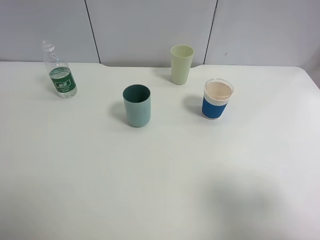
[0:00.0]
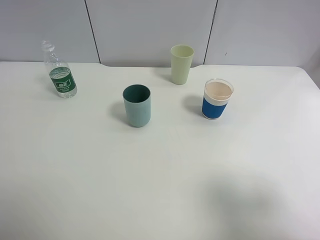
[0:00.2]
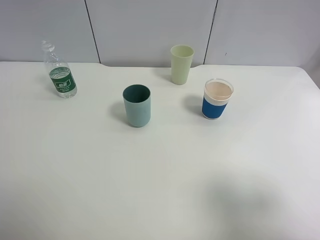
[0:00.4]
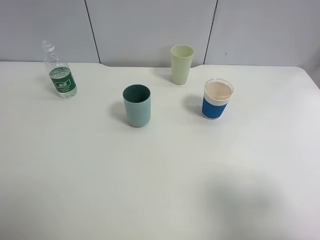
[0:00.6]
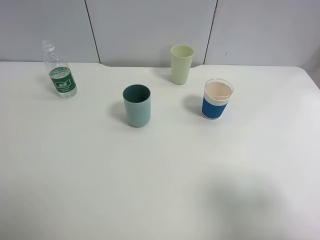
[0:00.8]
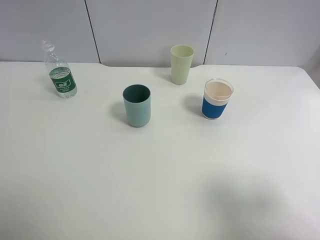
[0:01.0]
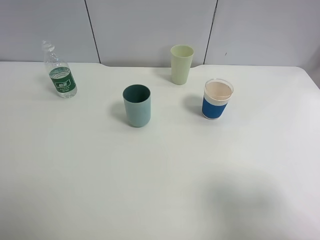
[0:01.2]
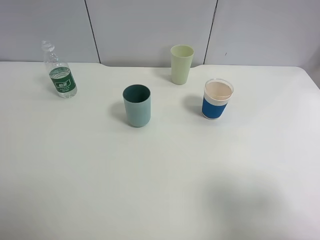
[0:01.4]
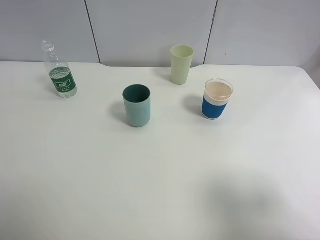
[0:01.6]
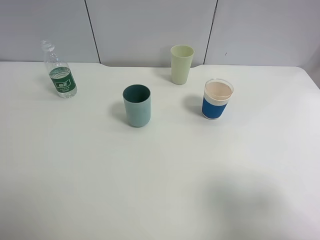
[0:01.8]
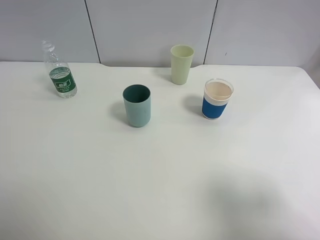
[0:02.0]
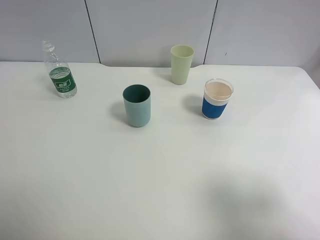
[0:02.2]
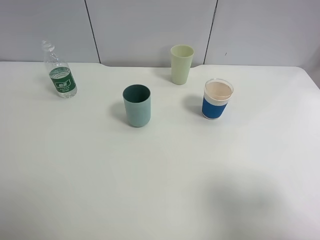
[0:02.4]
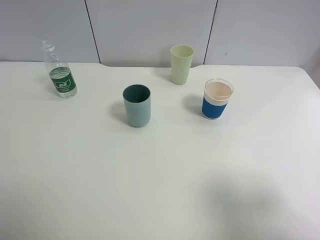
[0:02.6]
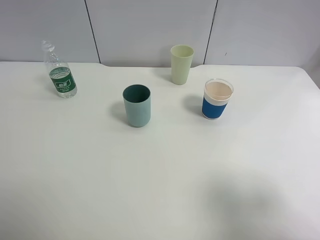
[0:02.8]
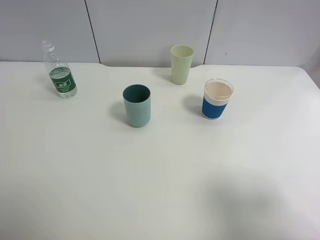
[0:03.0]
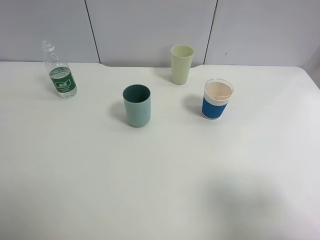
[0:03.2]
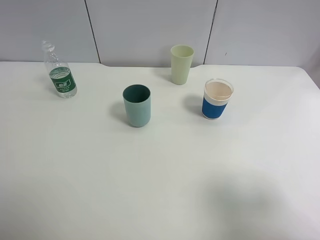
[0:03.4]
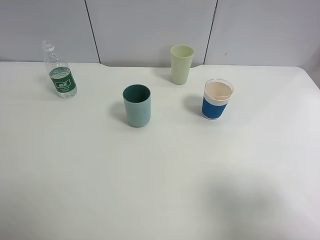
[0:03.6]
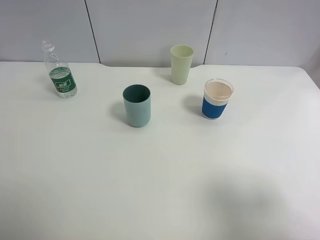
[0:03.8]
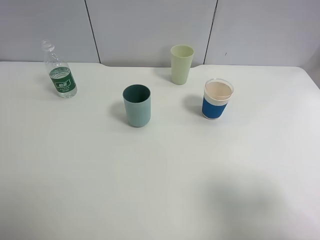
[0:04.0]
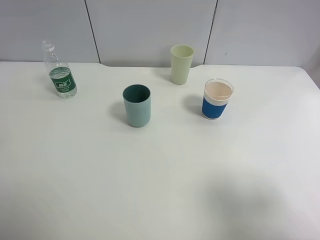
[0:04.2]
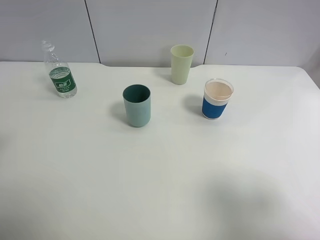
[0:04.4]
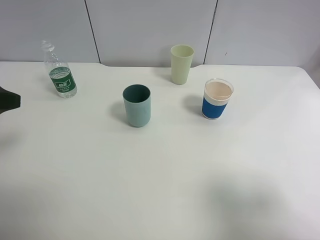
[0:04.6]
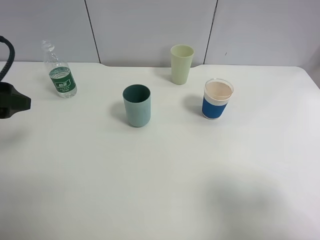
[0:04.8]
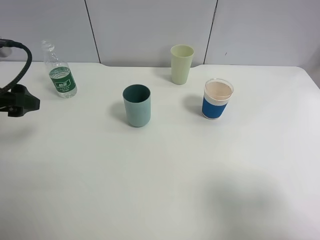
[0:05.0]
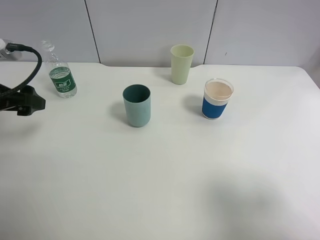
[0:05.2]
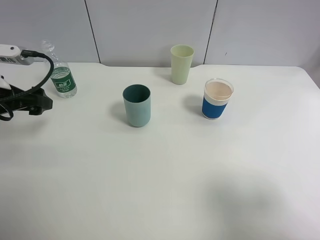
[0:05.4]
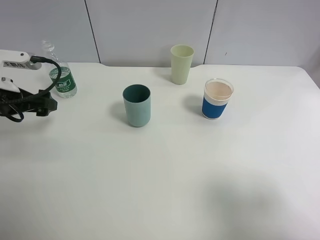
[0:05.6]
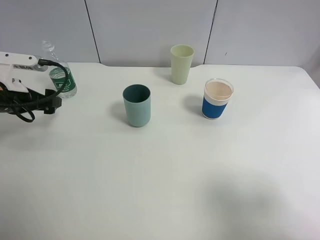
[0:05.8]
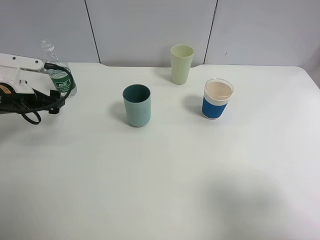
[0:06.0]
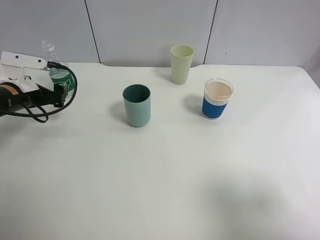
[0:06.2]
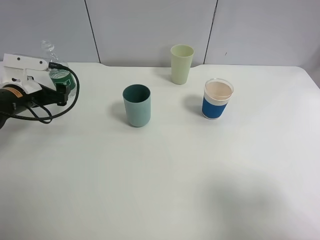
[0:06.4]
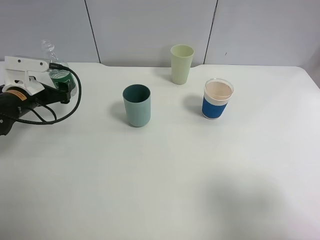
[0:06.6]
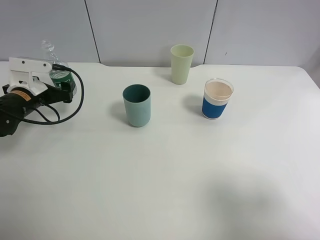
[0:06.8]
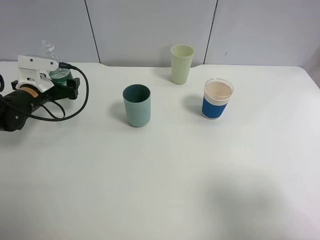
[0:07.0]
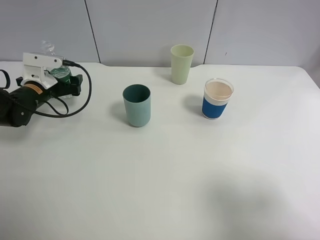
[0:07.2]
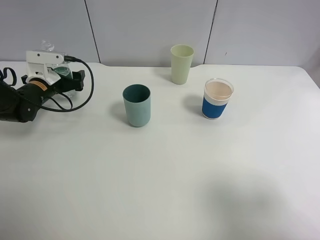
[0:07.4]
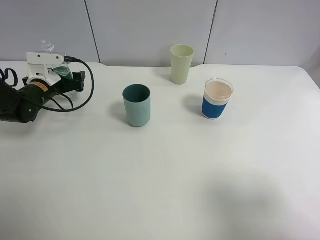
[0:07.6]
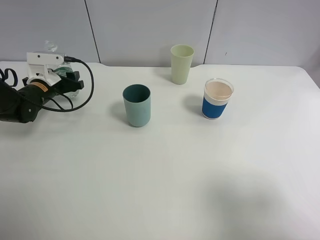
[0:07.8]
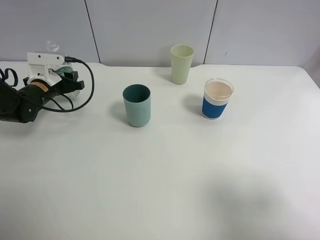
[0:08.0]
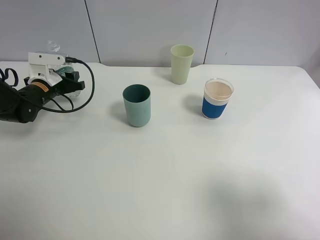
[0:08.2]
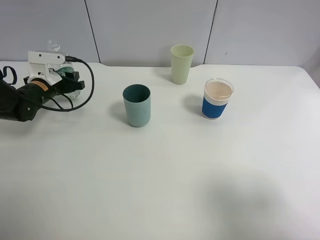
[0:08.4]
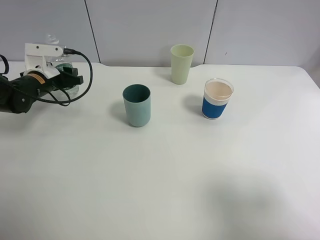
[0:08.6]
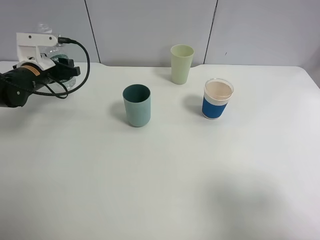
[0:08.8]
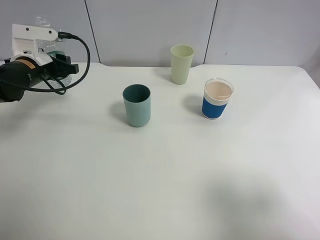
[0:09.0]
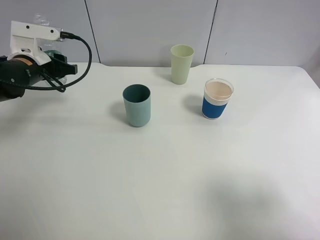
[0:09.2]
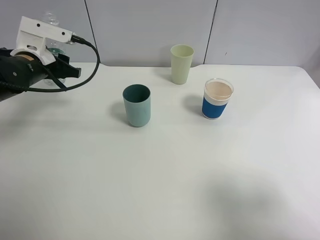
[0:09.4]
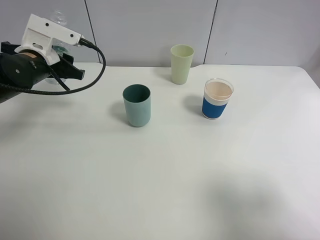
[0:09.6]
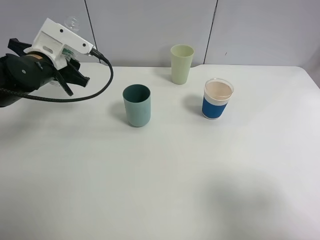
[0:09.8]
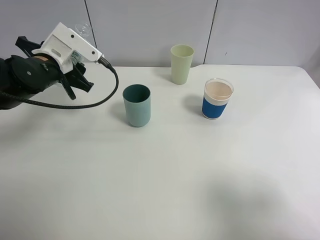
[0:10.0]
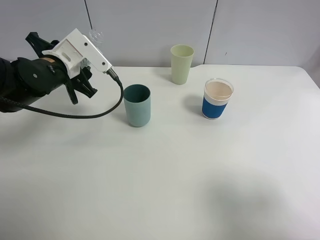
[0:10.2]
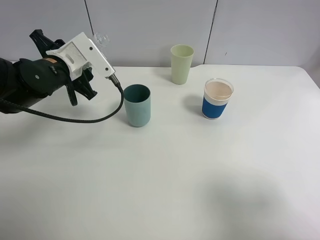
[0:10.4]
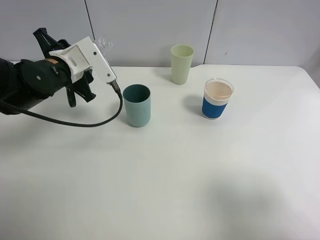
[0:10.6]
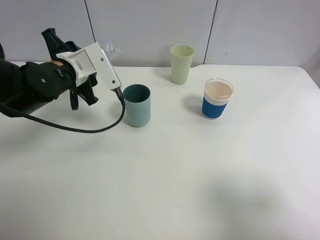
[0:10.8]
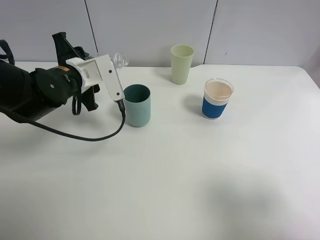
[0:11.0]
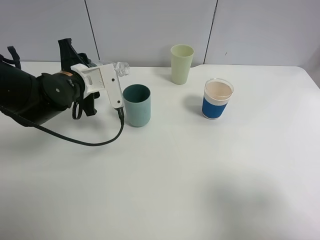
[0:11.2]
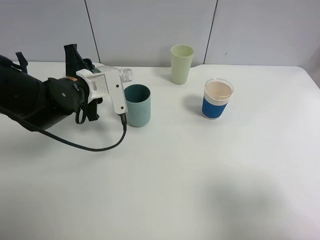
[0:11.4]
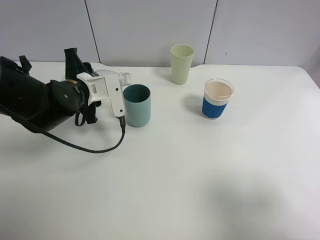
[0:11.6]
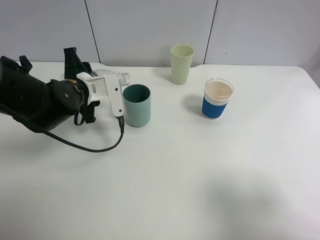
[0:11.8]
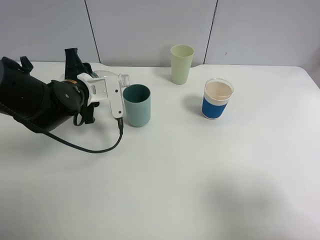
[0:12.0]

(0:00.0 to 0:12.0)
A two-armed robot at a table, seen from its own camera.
Task of the whole recording: use a clamp to hold the bottle of the drink, pour the beverage into a random cup, then clamp the cup containing the drink and pour the drink into another random cup.
Step, 0:00.0 - 0:08.4: Pick up the water bottle with left gripper.
0:00.0 - 0:03.0: Both grippers stay put.
0:04.4 - 0:06.0: The left gripper shifts approximately 25 cm forward and downward.
0:06.0 - 0:07.6: The left gripper shifts some 10 cm forward and downward.
0:07.6 - 0:09.0: The left gripper moves upward, about 10 cm, and closes up.
0:09.0 - 0:10.4: The left gripper shifts some 10 cm to the right.
0:10.4 - 0:12.0: The left gripper moves roughly 5 cm.

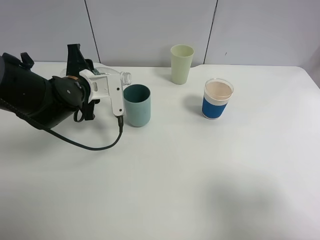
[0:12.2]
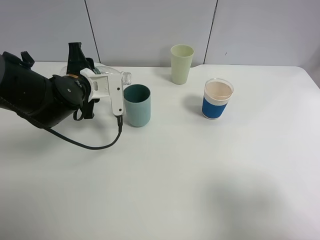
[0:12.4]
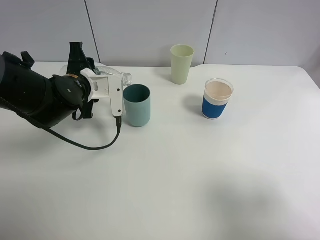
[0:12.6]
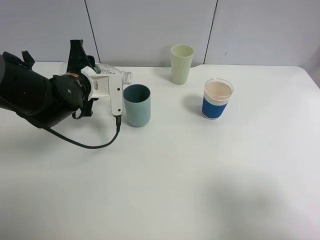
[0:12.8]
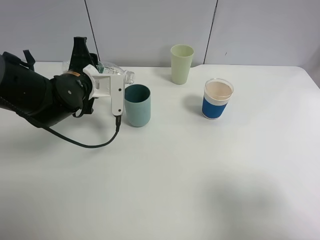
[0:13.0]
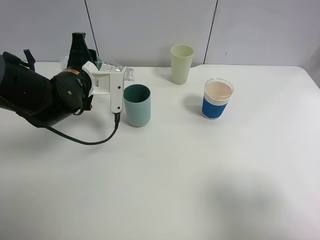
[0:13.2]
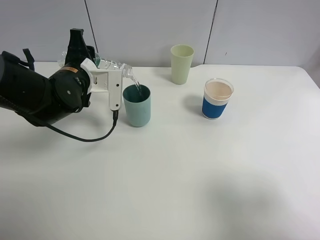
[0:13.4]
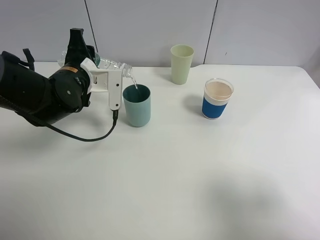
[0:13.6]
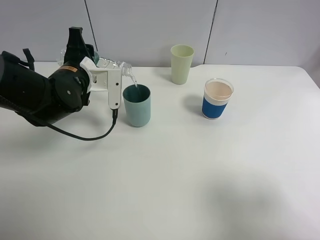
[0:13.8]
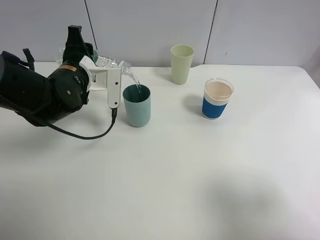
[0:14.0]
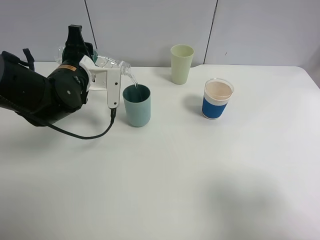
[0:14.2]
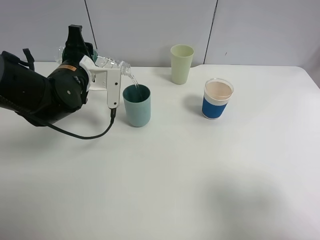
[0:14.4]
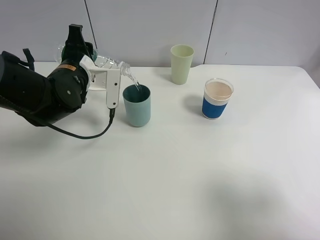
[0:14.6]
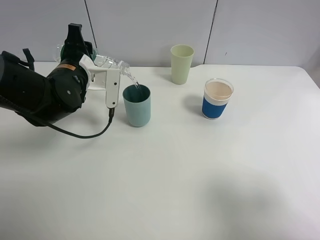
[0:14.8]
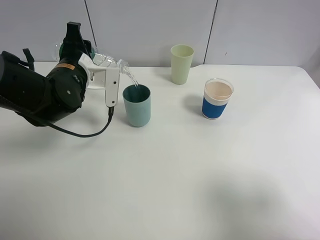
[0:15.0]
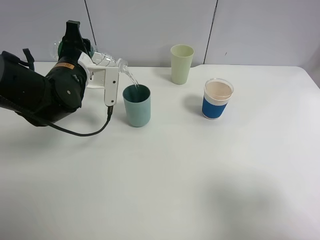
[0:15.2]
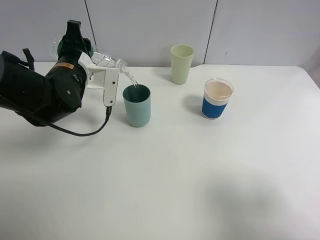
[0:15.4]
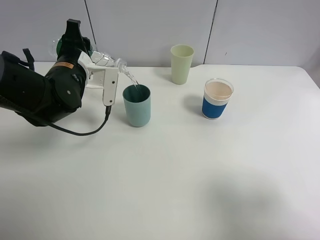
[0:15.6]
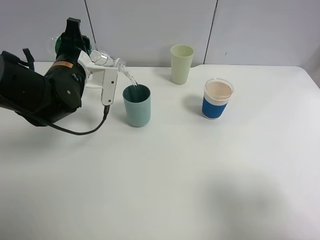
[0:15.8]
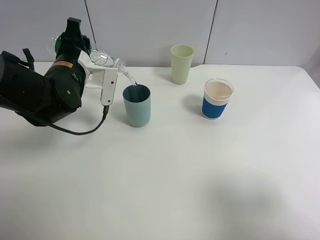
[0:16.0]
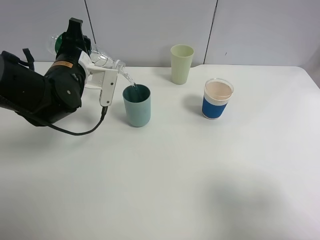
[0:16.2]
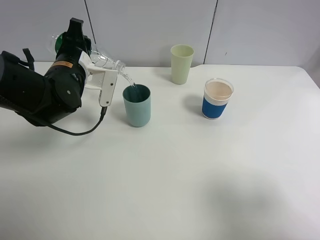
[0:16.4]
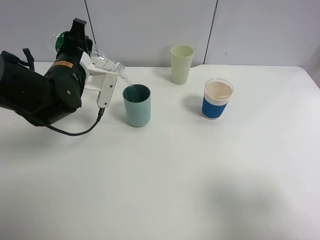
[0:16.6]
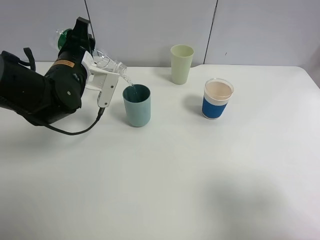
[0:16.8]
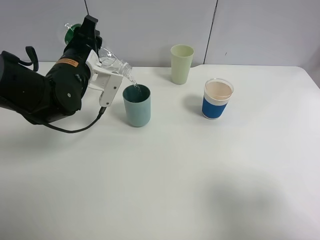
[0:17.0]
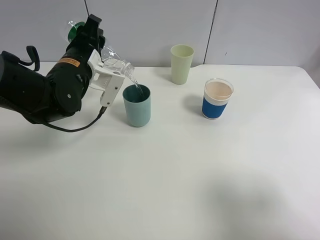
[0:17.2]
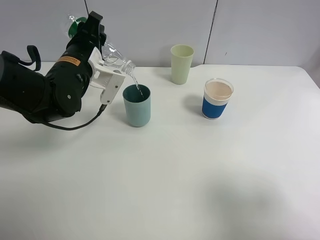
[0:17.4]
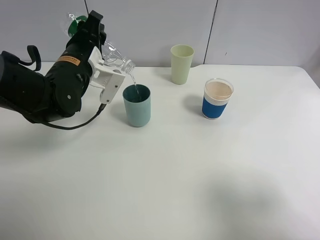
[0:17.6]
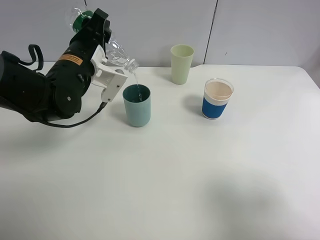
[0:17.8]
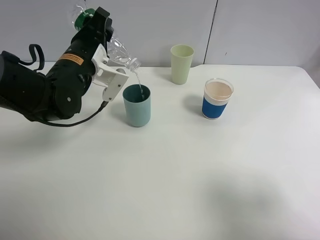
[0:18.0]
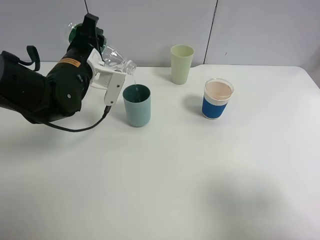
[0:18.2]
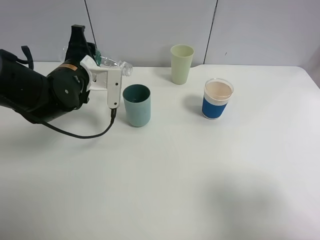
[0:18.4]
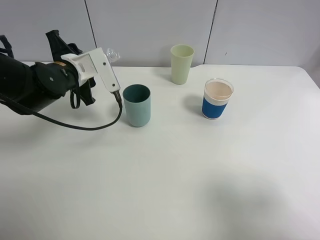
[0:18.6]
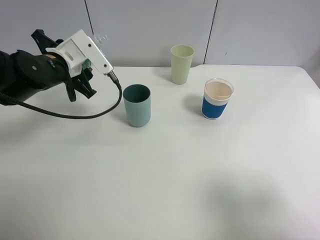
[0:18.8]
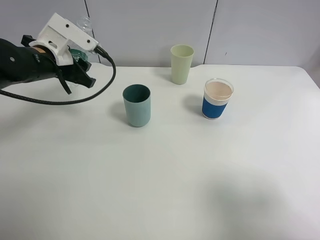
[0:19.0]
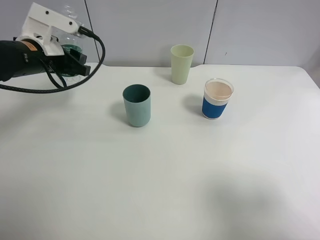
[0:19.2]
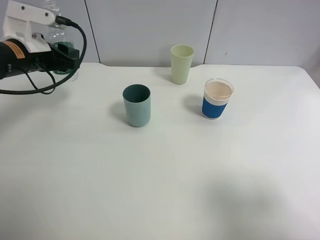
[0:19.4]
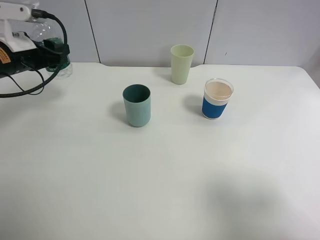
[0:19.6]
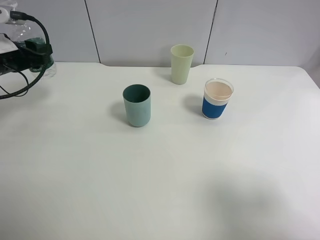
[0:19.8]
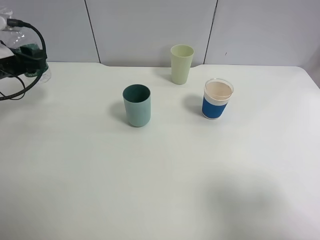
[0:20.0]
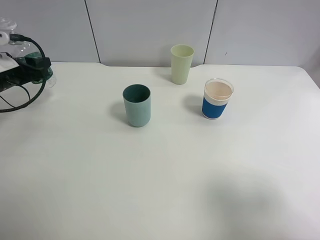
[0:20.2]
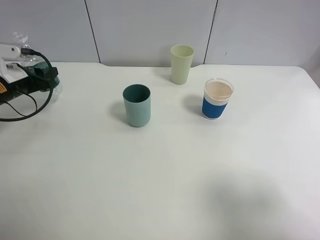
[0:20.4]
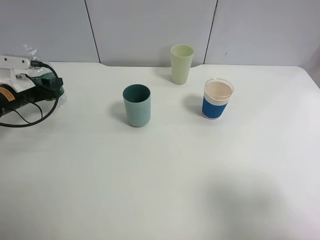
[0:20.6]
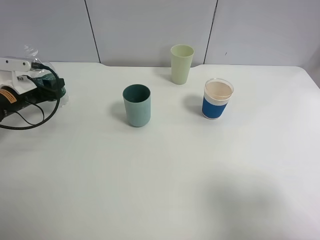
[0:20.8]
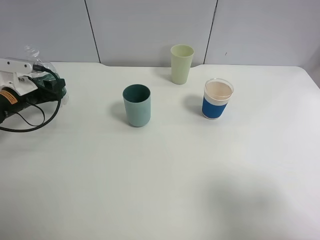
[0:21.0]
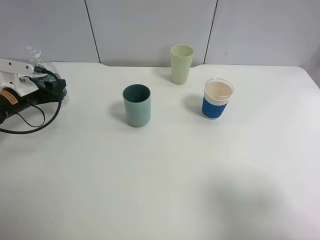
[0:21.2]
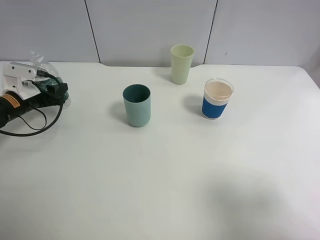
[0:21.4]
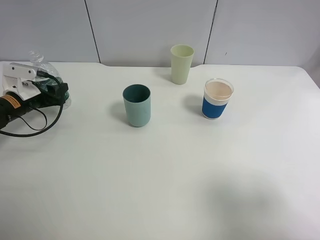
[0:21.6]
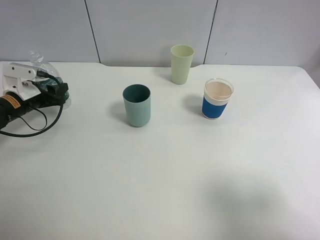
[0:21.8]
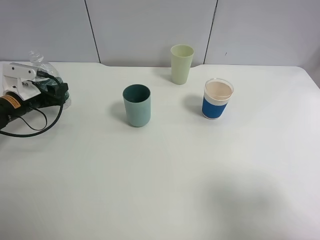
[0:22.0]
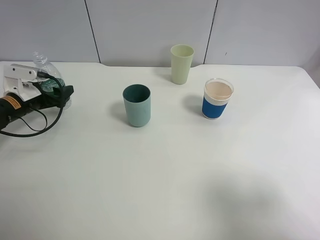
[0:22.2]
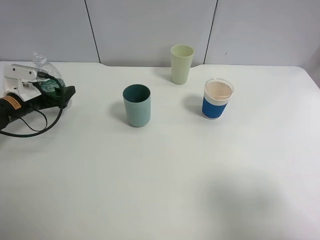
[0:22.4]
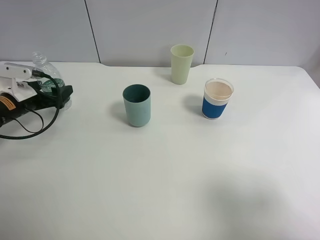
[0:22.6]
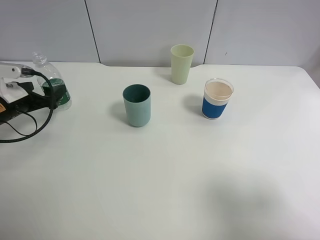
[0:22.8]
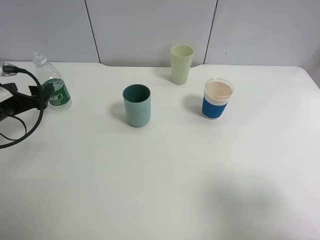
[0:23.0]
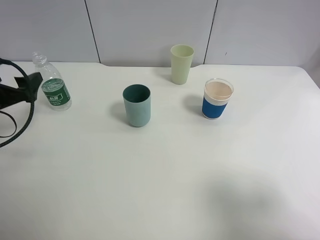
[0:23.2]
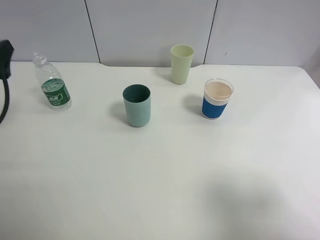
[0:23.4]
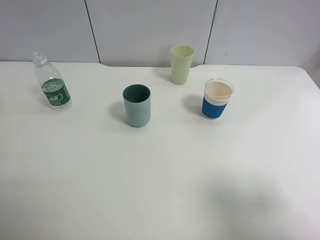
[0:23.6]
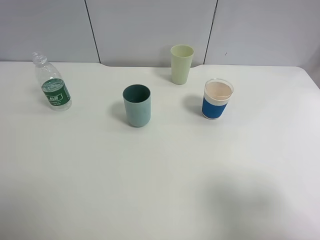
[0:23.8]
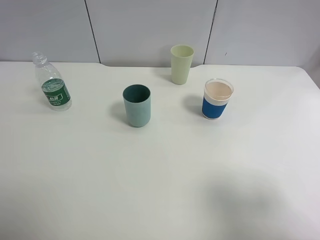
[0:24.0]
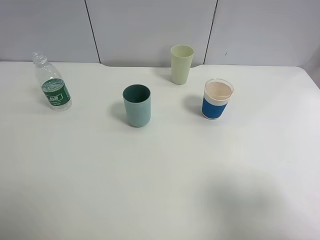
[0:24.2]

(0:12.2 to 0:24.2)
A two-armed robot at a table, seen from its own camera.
Task of the whole recording: use a clamp to hold the bottle of the drink, pour the beverage into a random cup, then clamp the cup containing the drink and pour the drink into another random cup.
Step, 0:12.2 - 0:18.4: Pour the water into the blue plastic cup with left gripper.
Step, 0:18.6 - 0:22.4: Place the water bottle on the table with left gripper.
0:12.2 - 0:13.8: There are only small adjustments of the grippers.
0:13.8 - 0:16.6: There are only small adjustments of the grippers.
0:18.2 - 0:19.8: The left gripper goes approximately 15 cm to the left.
0:19.8 - 0:21.2: The left gripper travels downward by approximately 10 cm.
0:21.2 - 0:22.6: The left gripper opens up.
0:22.6 - 0:24.2: The left gripper travels backward and upward by approximately 35 cm.
